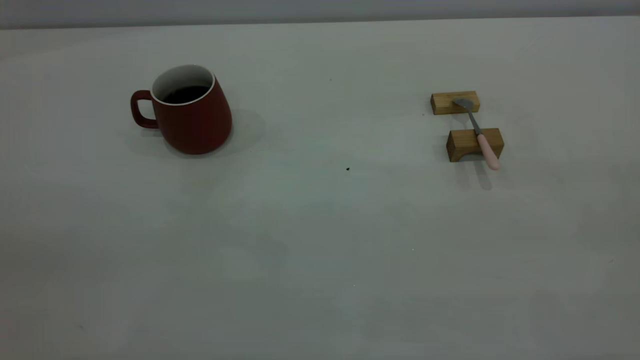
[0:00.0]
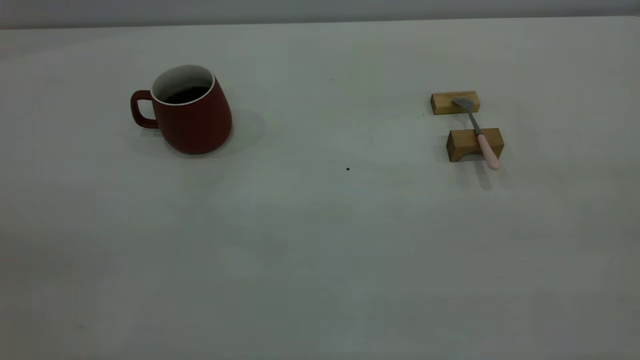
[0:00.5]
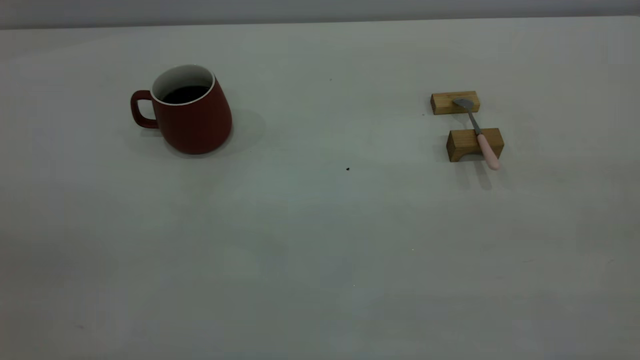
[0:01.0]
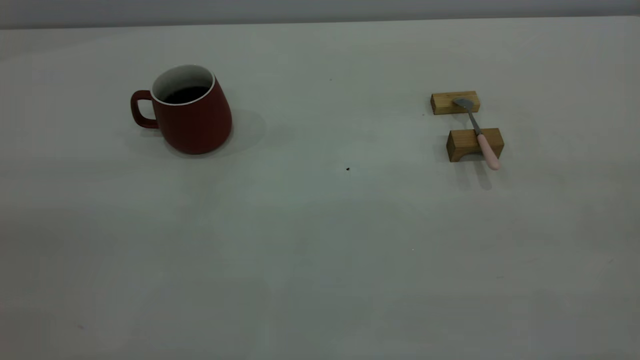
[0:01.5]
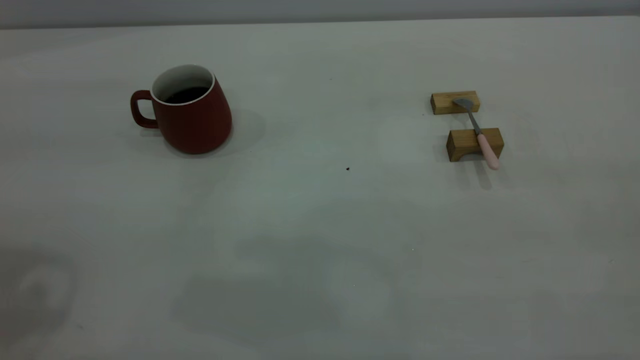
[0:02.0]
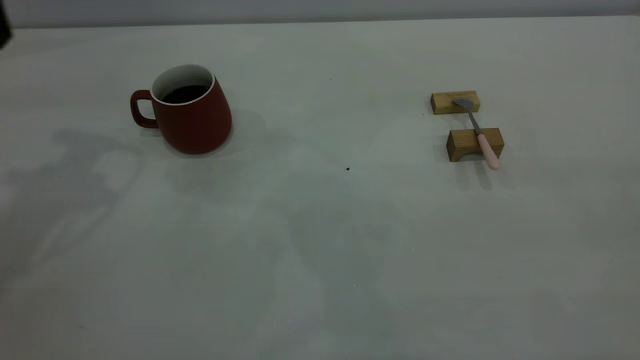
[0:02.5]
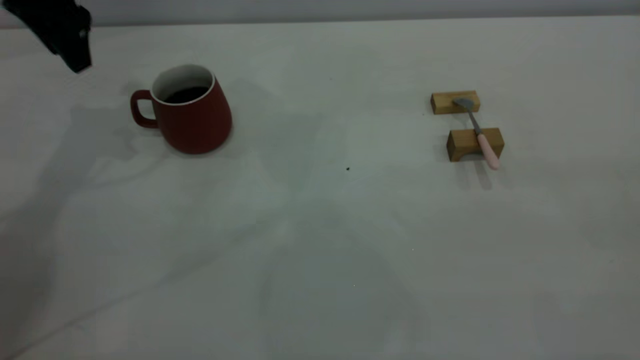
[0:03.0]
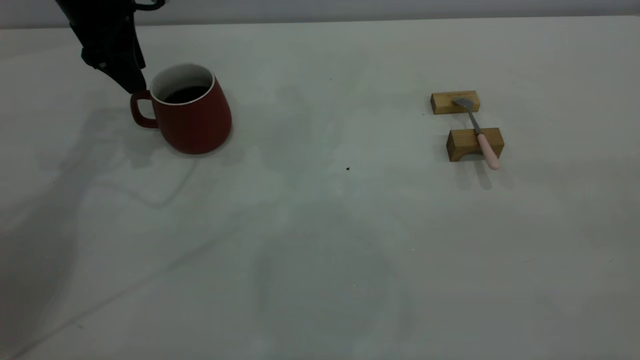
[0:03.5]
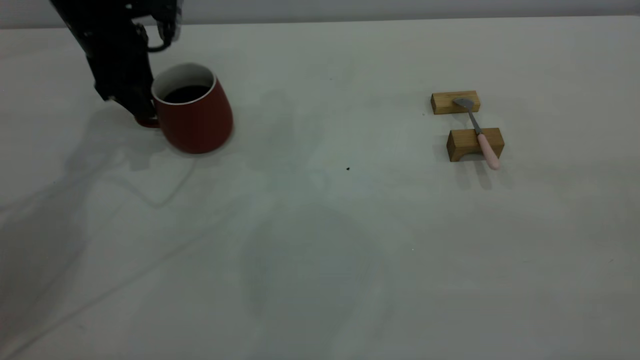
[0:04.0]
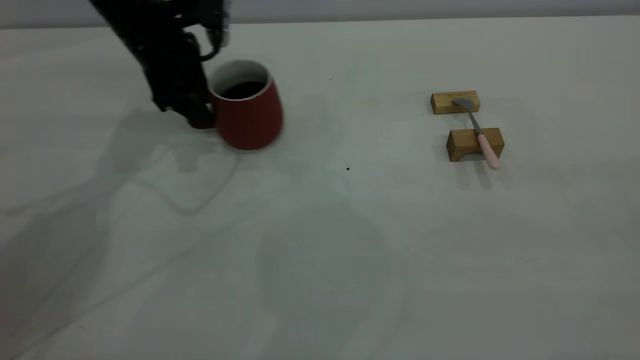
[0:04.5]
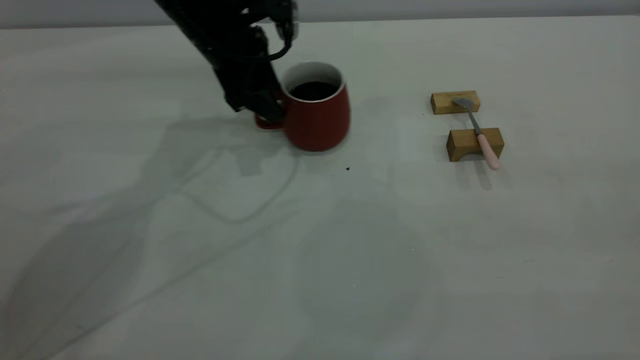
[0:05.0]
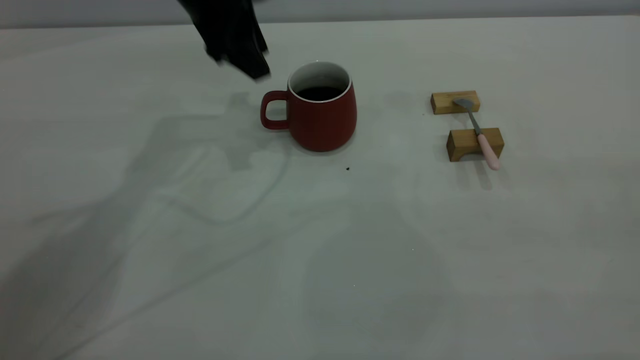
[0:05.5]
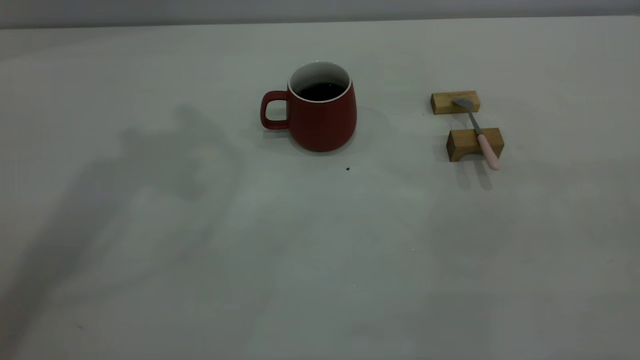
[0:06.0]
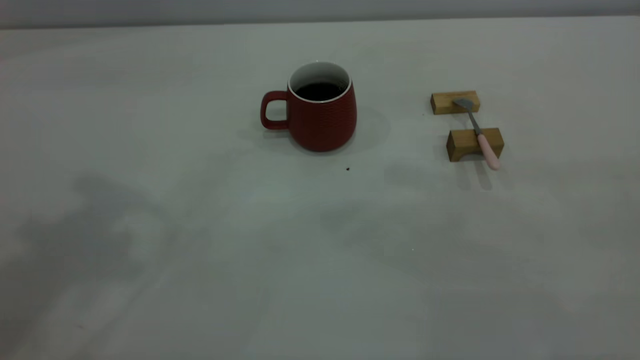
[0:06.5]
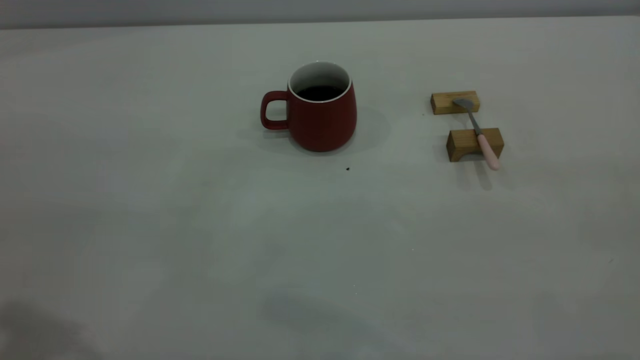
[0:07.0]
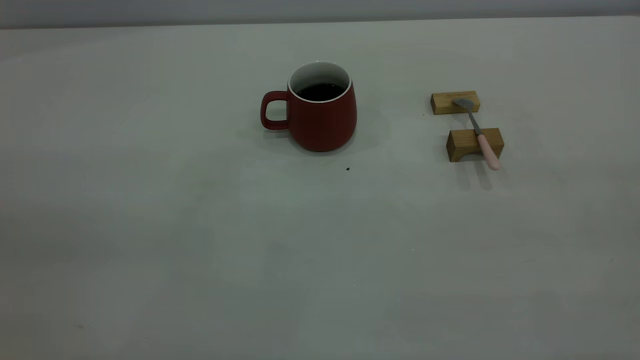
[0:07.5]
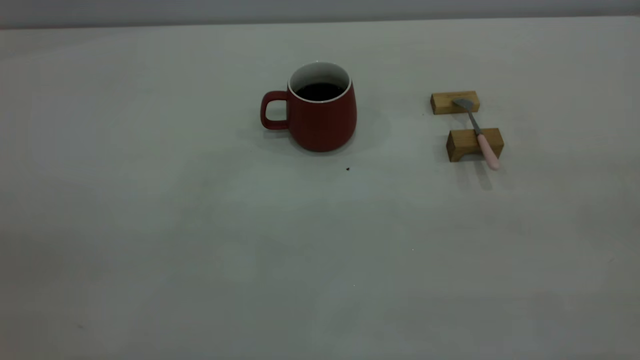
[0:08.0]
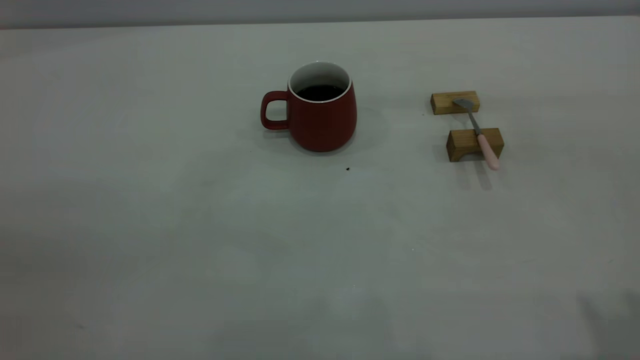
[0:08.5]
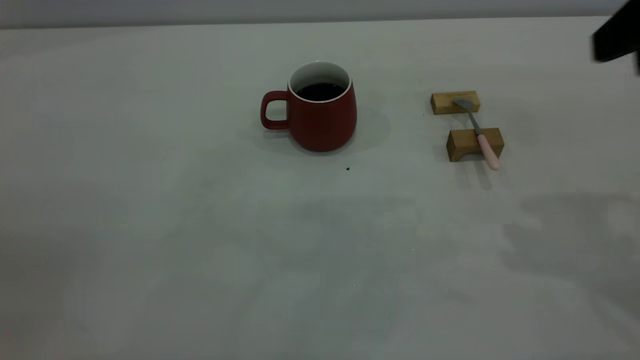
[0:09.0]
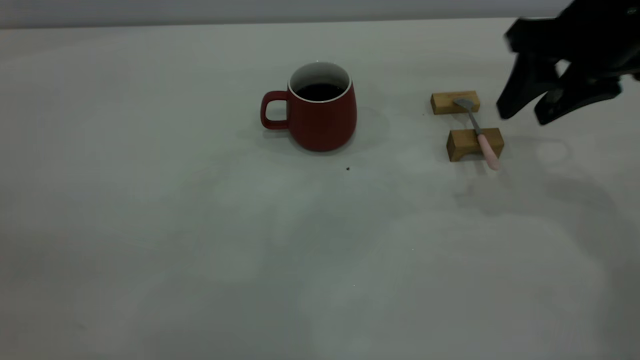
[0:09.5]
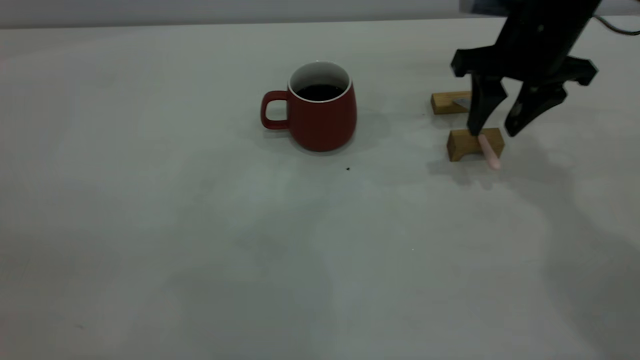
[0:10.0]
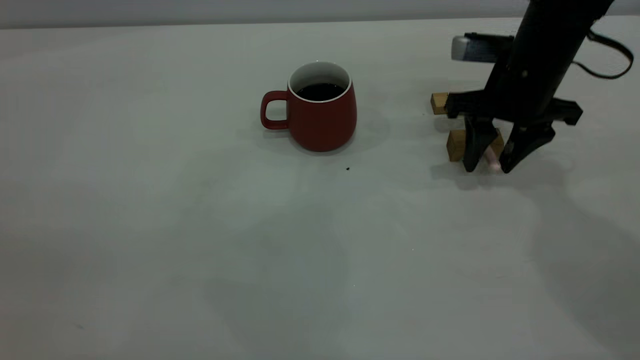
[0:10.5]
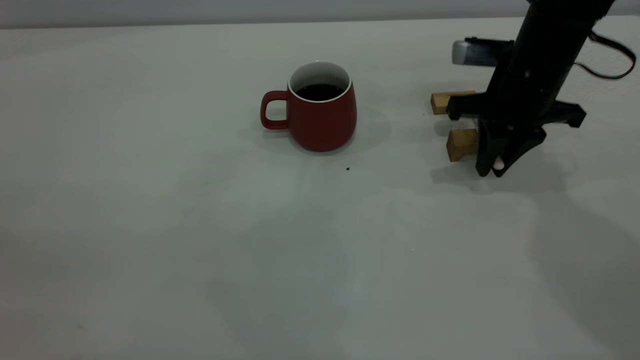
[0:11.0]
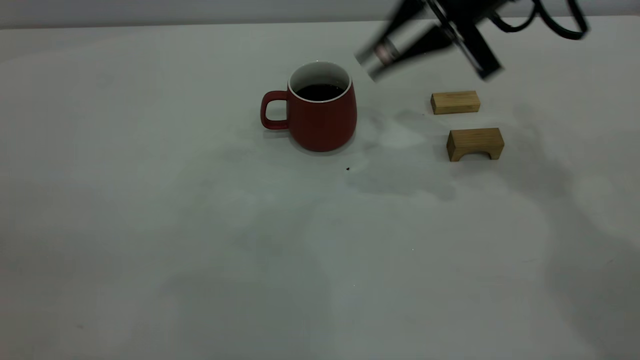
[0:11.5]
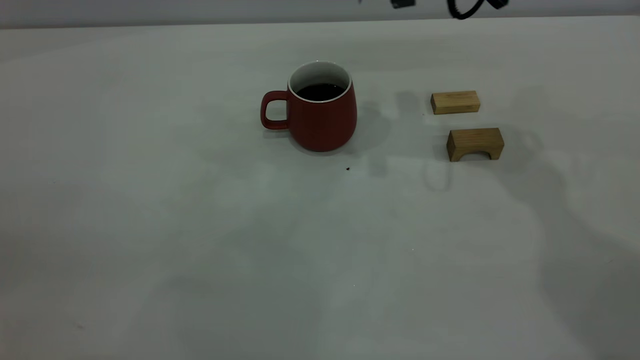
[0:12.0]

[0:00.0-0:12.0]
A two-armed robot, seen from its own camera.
Step, 0:00.0 to 0:05.0: Move the cup with coffee to the center of view.
Step, 0:05.5 to 0:11.0: Pick up the spoon.
0:02.0 to 0:04.0: The left gripper travels forward and downward by about 35 cm.
0:04.0 to 0:06.0: The left gripper travels upward by some 30 cm.
0:08.0 to 0:10.0: The right gripper is displaced forward and downward by roughly 40 cm, and opens its fingers.
0:10.0 to 0:12.0: The right gripper moves upward and to the left, roughly 10 cm, and closes.

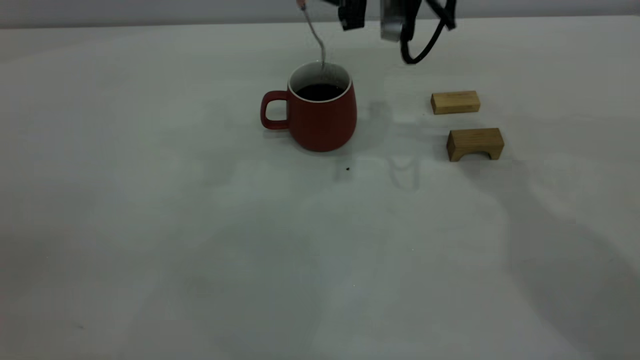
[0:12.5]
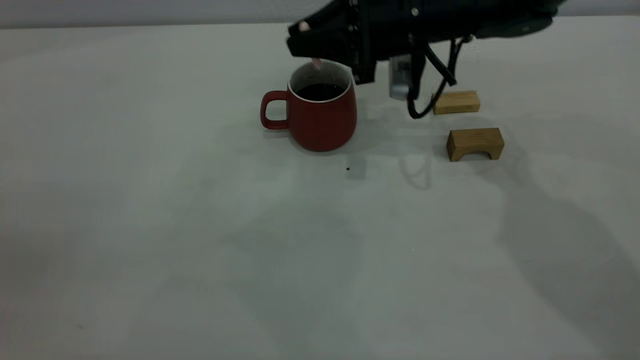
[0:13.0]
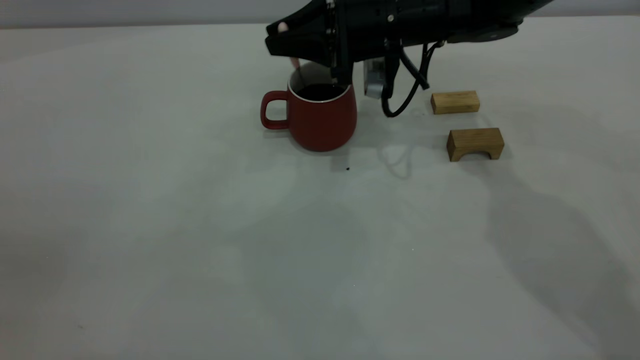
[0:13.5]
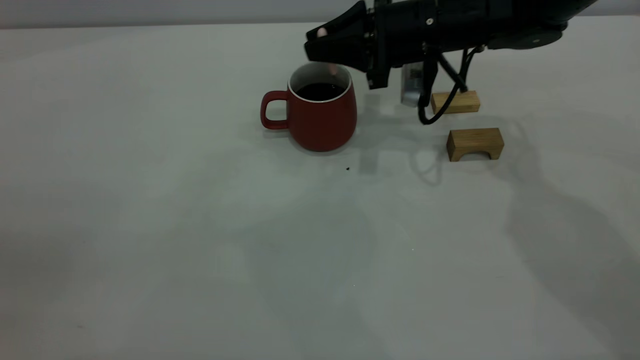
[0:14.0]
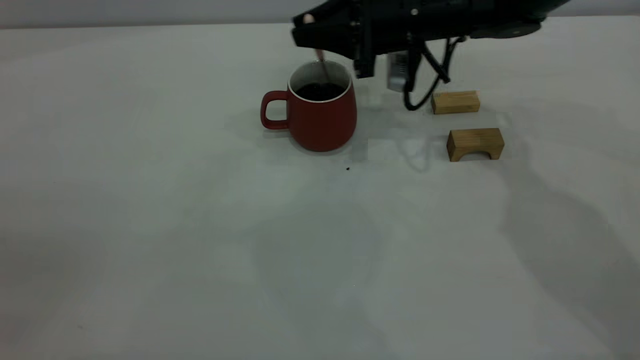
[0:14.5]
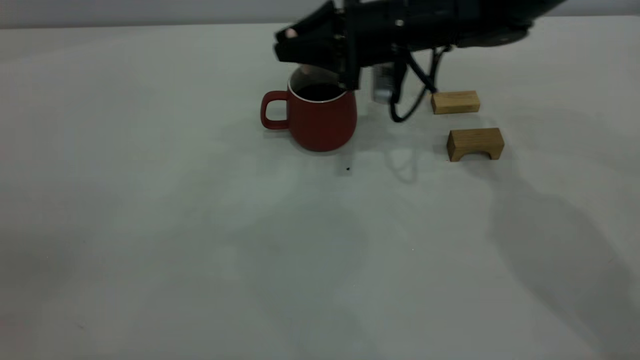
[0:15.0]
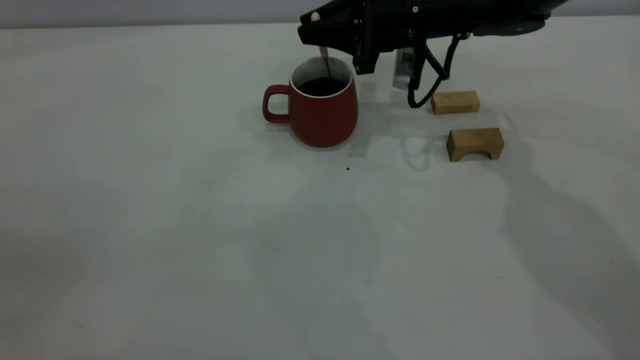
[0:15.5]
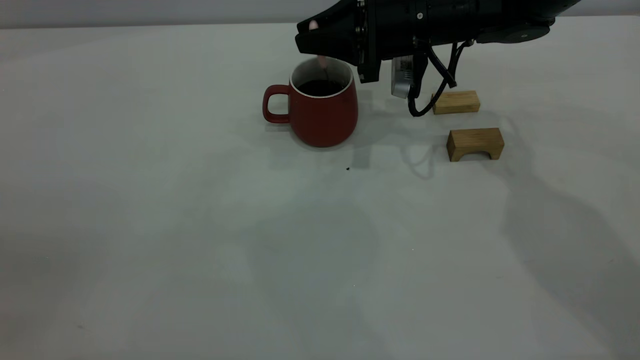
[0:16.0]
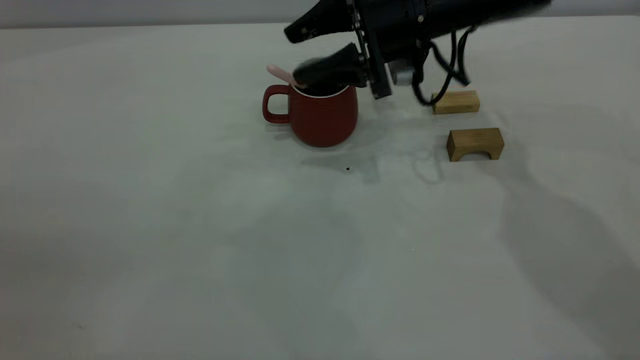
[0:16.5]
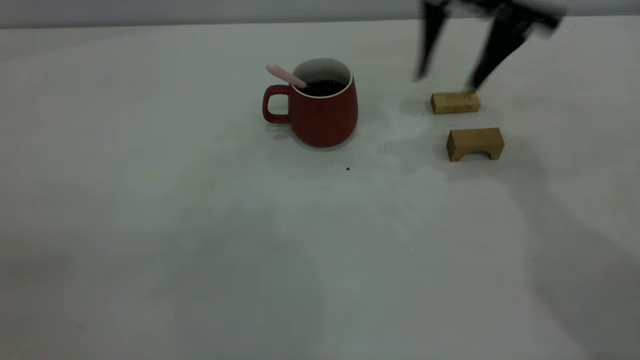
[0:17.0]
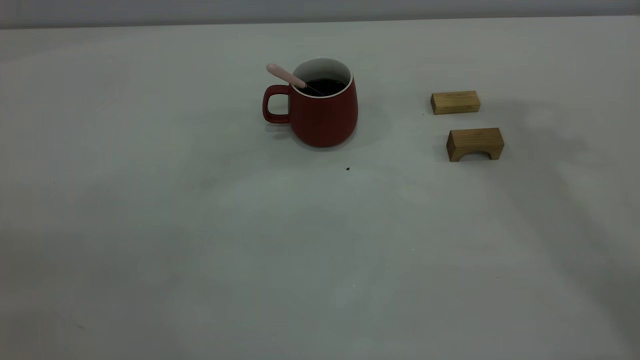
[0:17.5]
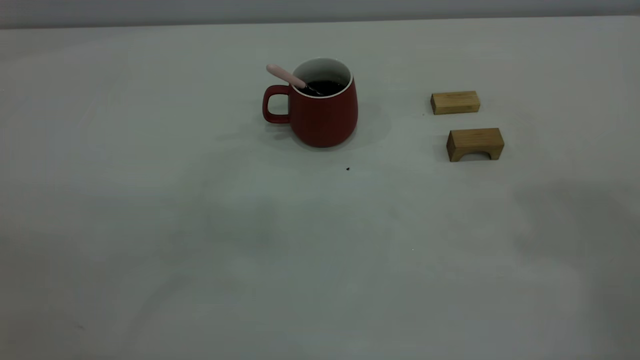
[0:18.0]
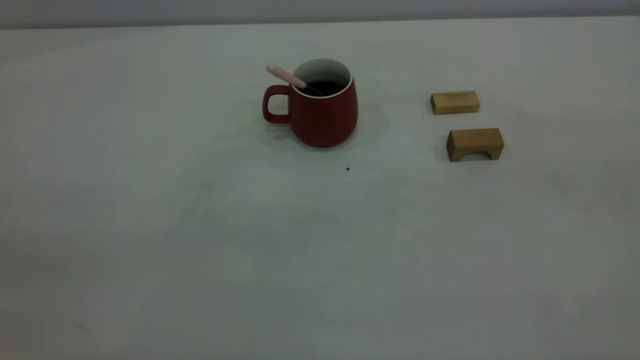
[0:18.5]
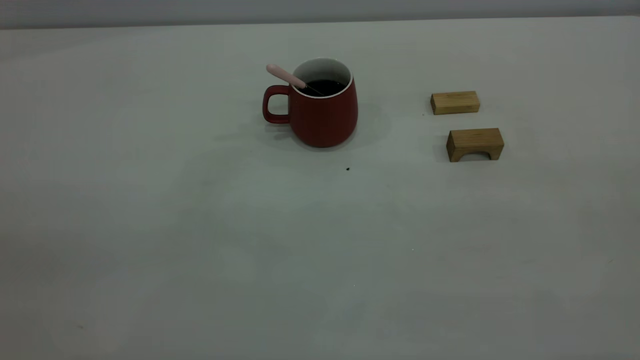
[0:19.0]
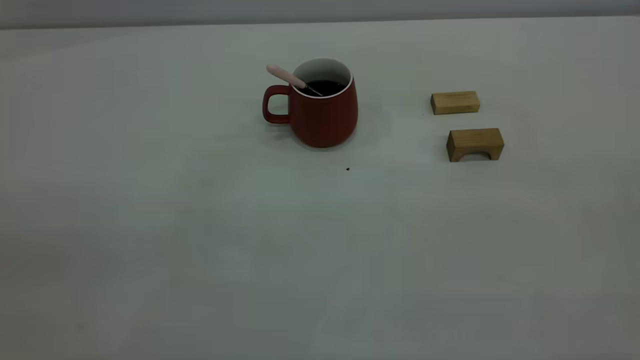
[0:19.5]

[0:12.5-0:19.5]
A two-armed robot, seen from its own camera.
Step, 0:12.5 to 0:16.5: Stir the coffee in the cup.
0:12.5 to 0:14.5: The right gripper goes roughly 10 cm downward.
0:14.5 to 0:16.0: The grippers make only small movements.
0:16.0 to 0:17.5: The right gripper is displaced upward by some 35 cm, and opens up.

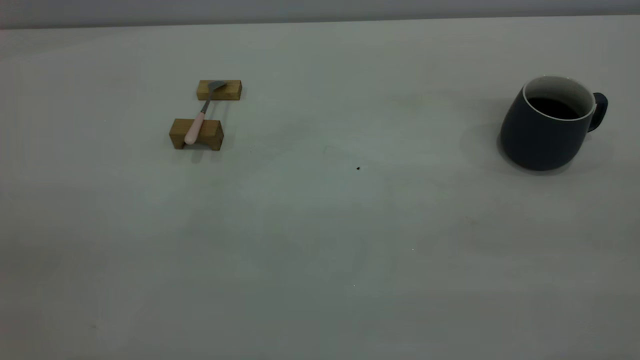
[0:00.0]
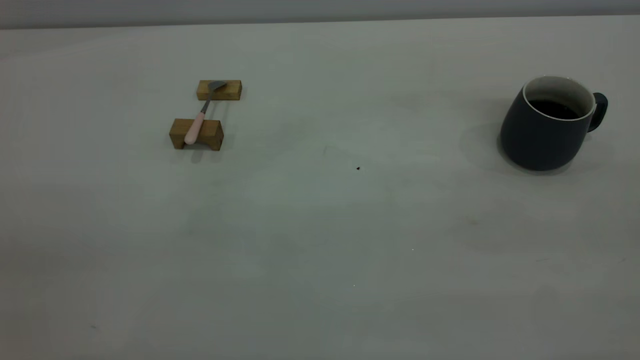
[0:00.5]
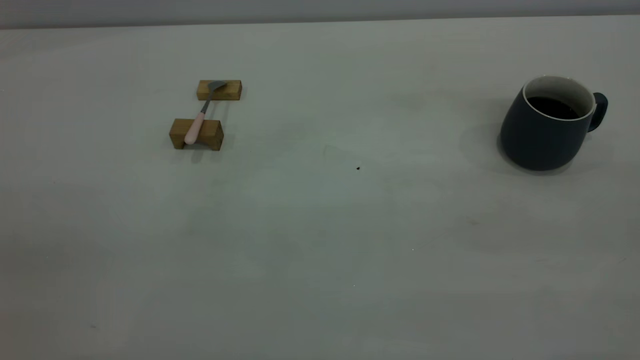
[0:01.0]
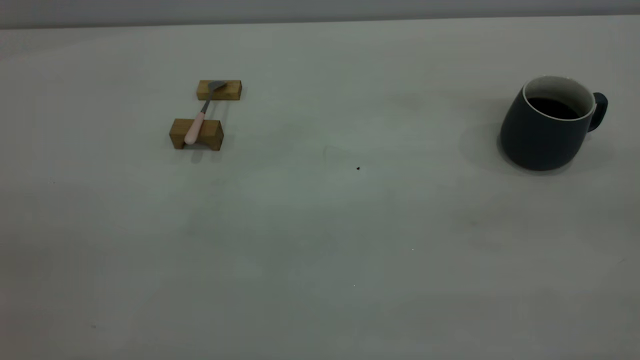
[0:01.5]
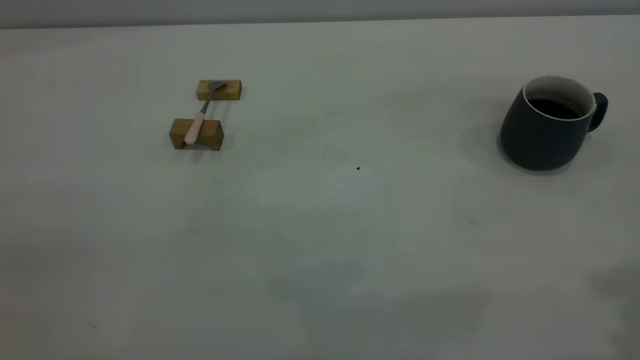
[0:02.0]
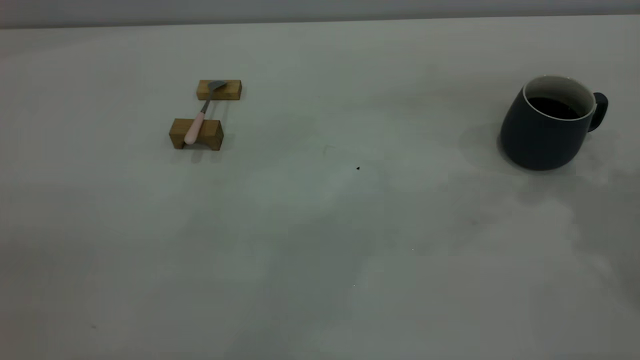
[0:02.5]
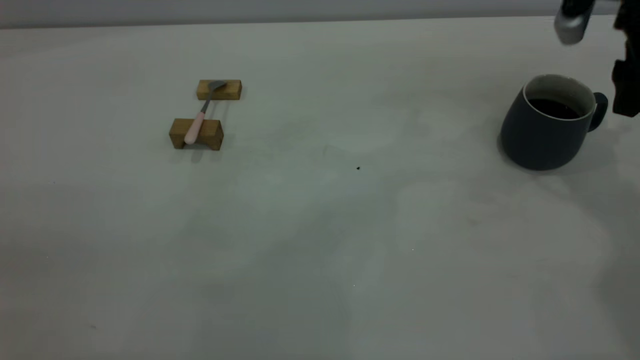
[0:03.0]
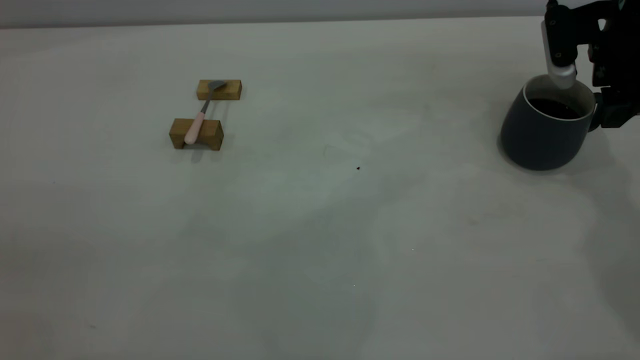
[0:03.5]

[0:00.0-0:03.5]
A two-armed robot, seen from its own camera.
0:02.0 to 0:03.5: The right gripper goes some 35 cm forward and downward.
